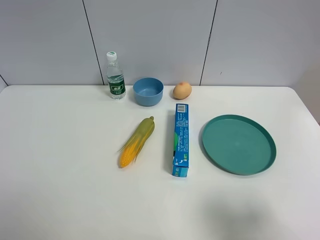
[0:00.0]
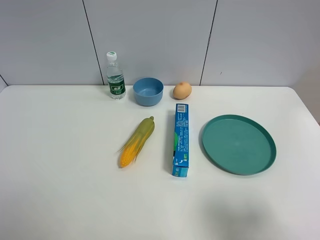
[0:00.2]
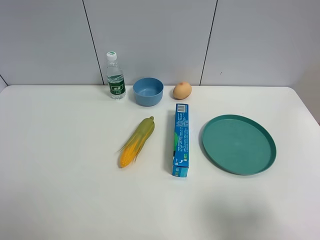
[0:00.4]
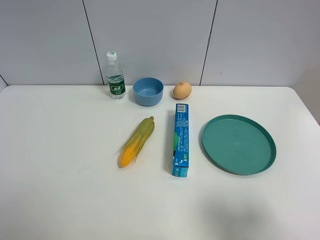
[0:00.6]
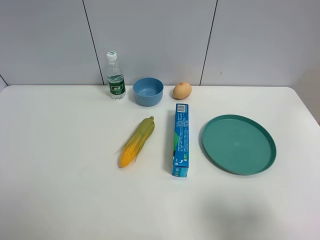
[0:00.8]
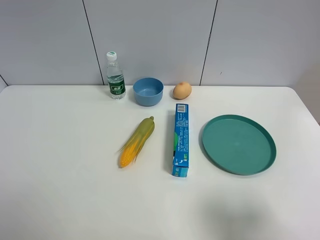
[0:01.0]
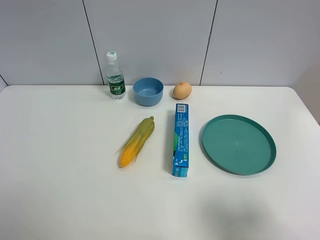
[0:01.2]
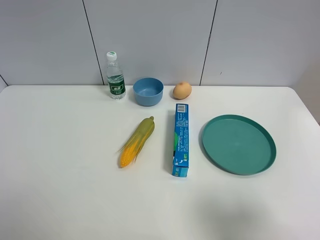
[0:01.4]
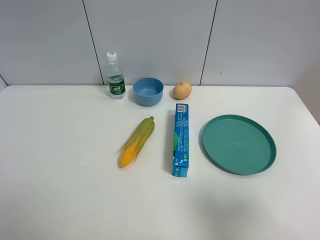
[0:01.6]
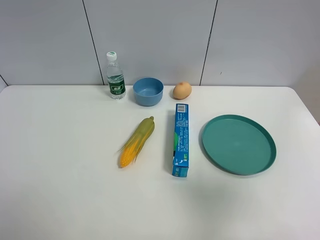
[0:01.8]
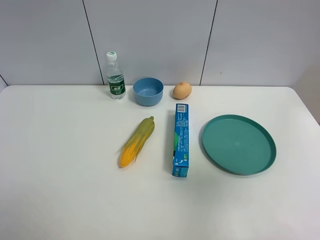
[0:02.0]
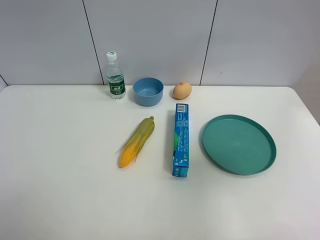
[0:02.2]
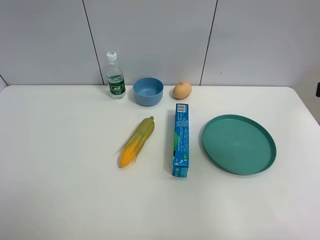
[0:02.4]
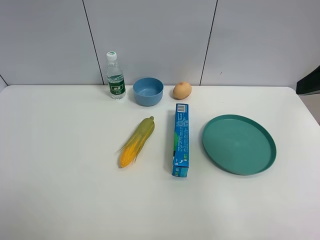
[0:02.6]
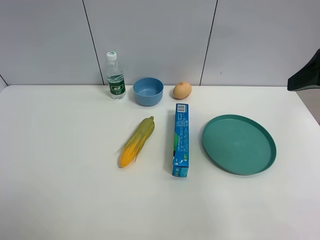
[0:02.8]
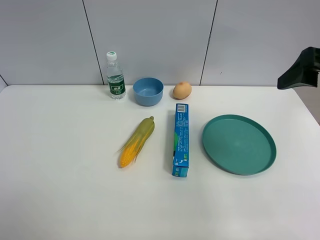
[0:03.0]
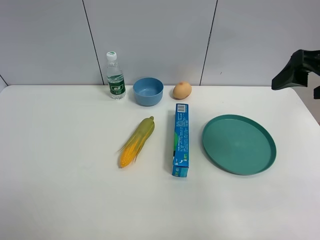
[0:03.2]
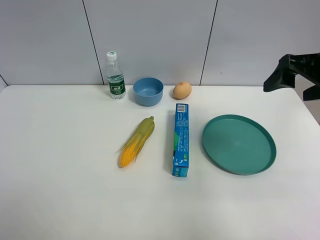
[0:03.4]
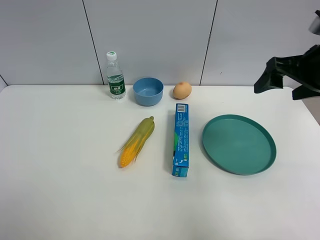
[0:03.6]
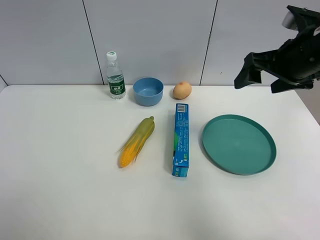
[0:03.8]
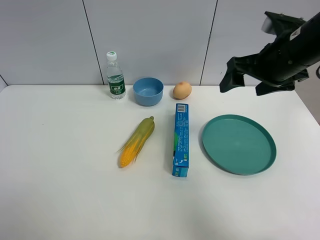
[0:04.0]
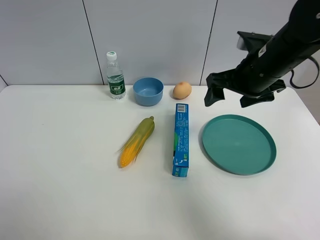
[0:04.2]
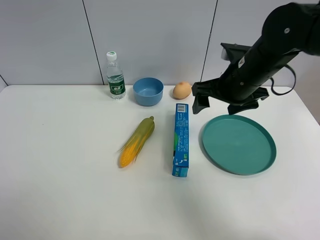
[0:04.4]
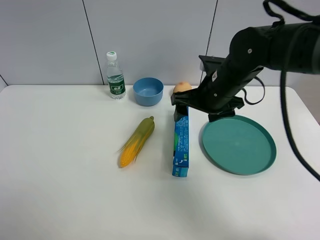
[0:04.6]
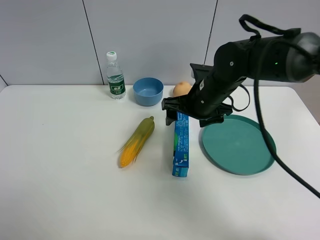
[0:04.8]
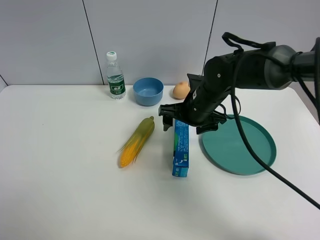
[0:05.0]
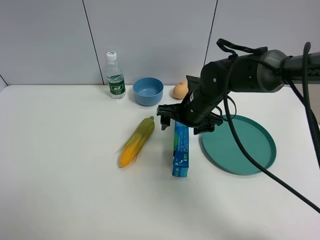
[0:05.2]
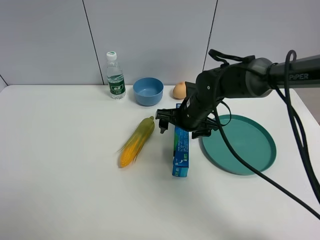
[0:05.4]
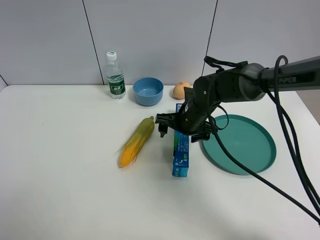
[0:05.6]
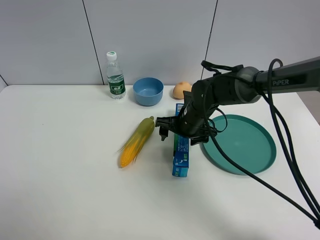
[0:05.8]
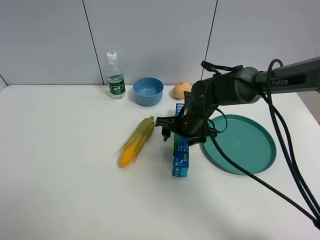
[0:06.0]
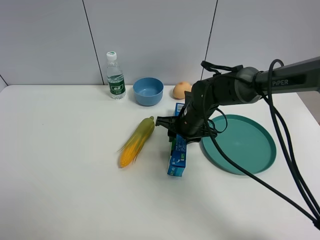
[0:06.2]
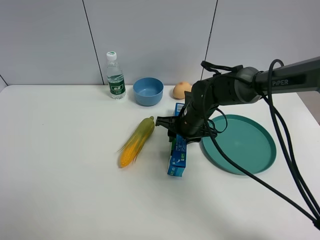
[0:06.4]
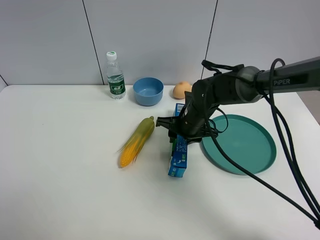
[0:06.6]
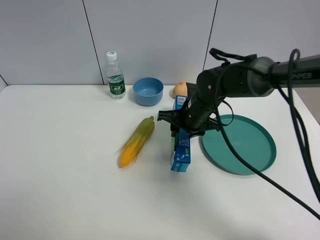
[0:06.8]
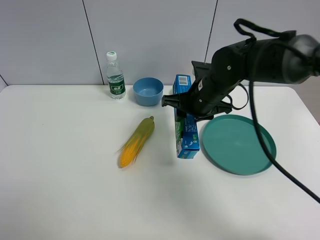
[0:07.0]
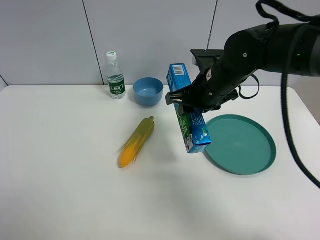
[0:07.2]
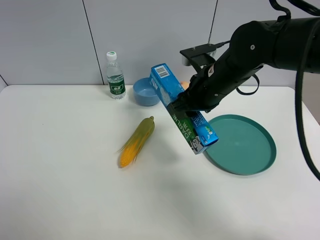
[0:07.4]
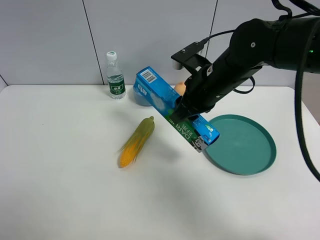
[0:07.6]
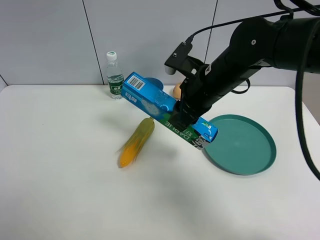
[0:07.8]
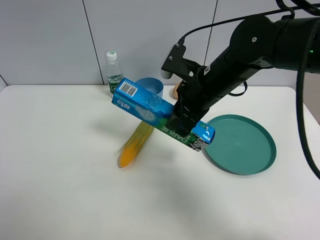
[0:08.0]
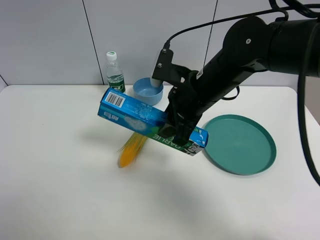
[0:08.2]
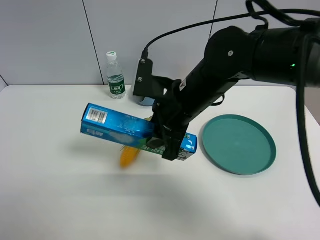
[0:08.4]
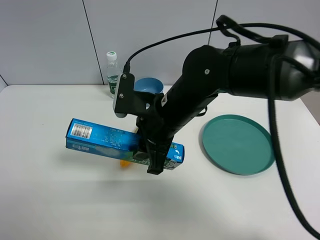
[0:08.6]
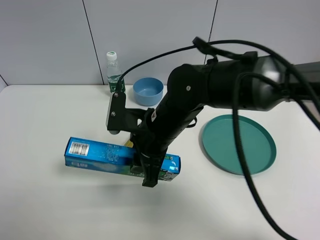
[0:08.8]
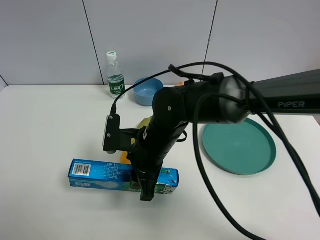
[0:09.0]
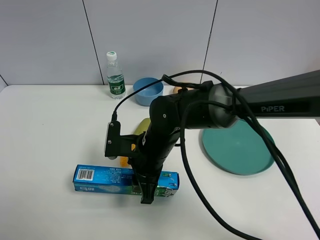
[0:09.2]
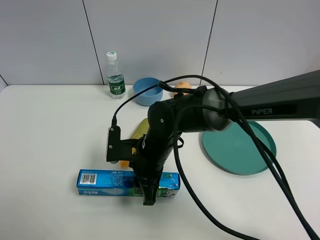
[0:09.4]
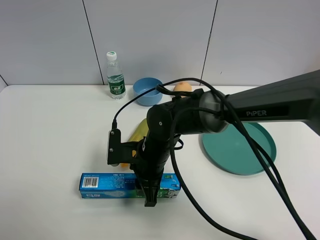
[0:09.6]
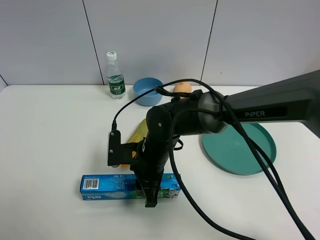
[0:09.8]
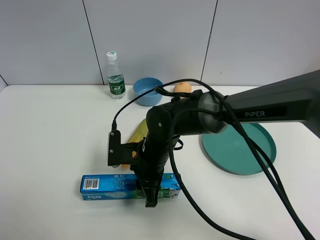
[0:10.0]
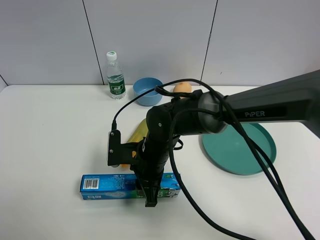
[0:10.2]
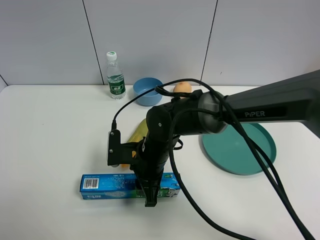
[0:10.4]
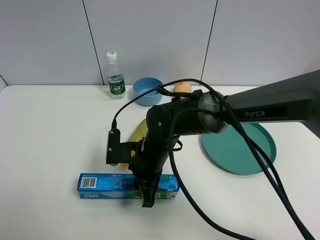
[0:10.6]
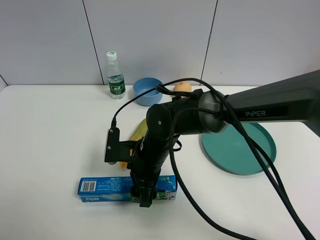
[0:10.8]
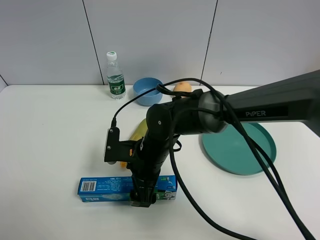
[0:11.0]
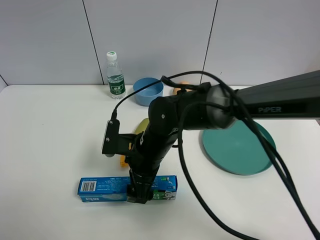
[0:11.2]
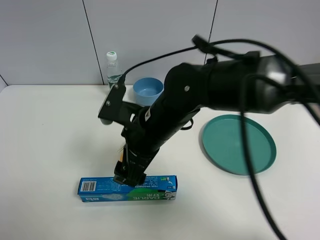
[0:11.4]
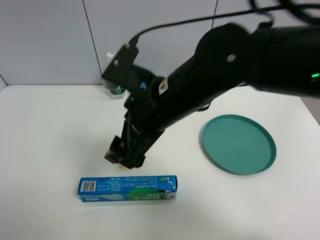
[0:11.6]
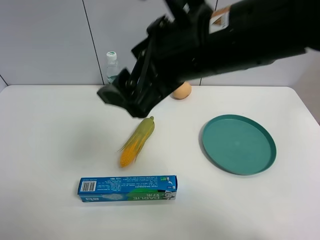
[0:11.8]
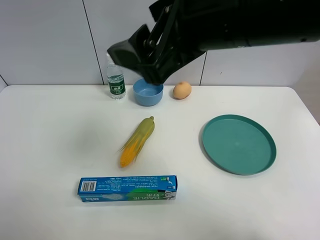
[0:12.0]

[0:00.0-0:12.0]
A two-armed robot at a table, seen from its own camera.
Task of the whole recording: the gripper move the object.
Step, 0:00.0 to 0:06.2: Grasp the toothpaste with the right gripper.
Step, 0:06.4 to 0:11.0: Place the toothpaste on the table with the right gripper.
0:01.6 to 0:03.0: The right gripper moves forward, approximately 20 cm.
0:03.0 to 0:04.4: The right gripper goes some 20 cm to the left, downward and forward.
0:04.4 to 0:06.0: The right gripper moves downward and to the left, approximately 15 cm, and closes.
0:06.0 to 0:07.6: The right gripper is displaced upward by some 15 cm, and closes its fingers.
0:07.6 to 0:09.0: The right gripper moves to the left, downward and backward, some 15 cm.
0:09.0 to 0:10.4: The grippers move only a little.
0:10.4 to 0:12.0: The right gripper shifts roughly 30 cm upward, and opens.

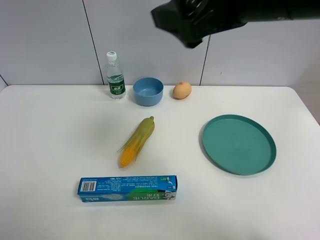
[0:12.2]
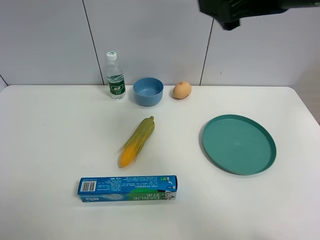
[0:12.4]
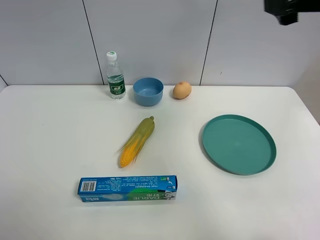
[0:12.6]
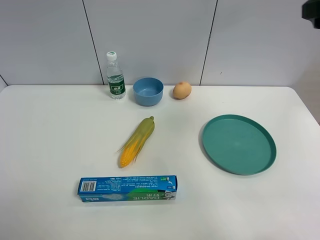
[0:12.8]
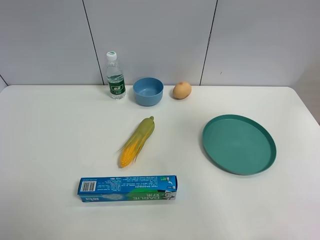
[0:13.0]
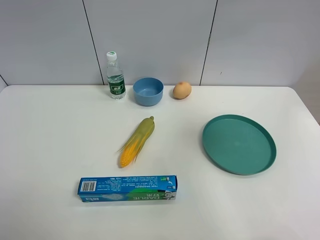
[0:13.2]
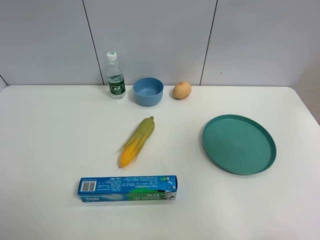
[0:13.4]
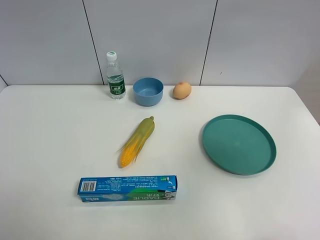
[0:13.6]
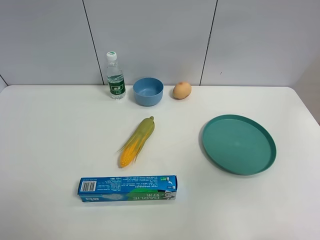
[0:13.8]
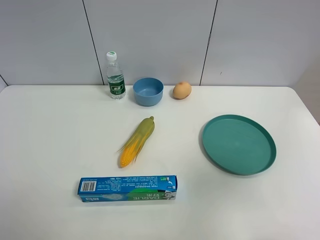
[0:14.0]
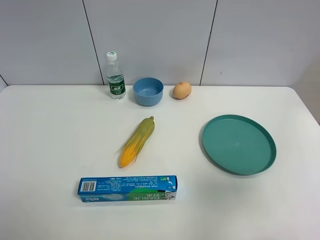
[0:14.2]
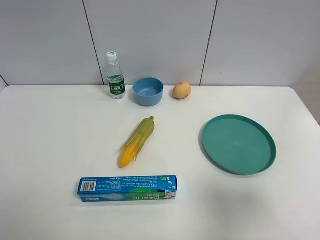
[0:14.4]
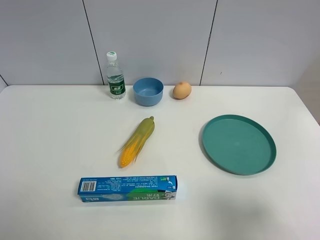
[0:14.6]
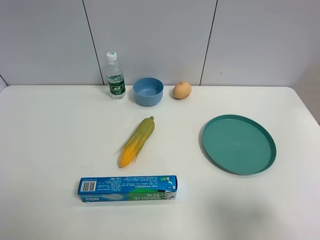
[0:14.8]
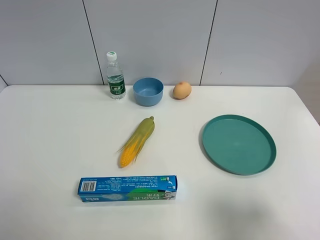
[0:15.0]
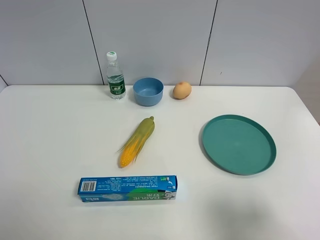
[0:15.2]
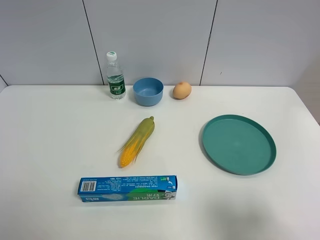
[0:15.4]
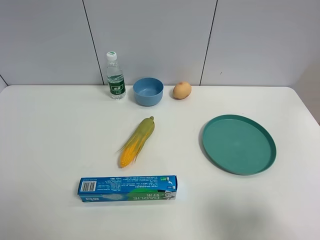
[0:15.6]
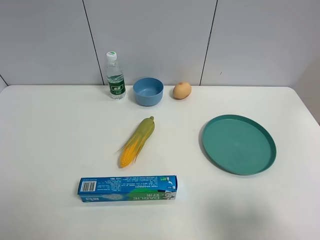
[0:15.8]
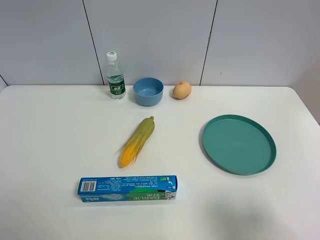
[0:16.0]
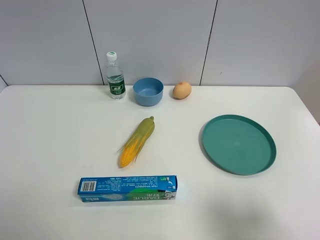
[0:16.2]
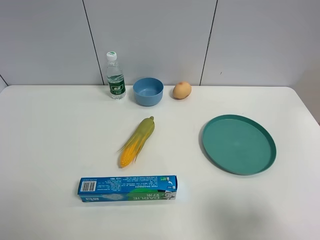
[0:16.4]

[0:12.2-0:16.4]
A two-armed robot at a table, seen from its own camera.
Task of the whole recording: the gripper move the object.
0:12.2 to 0:13.6: The right gripper goes some 20 cm to the right and backward.
0:13.6 to 0:15.0: The right gripper goes some 20 cm downward and backward.
0:15.0 to 0:16.4: Both grippers stay about where they are.

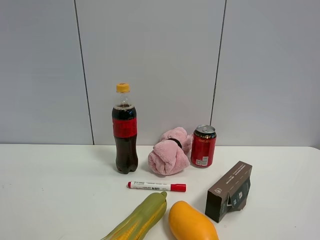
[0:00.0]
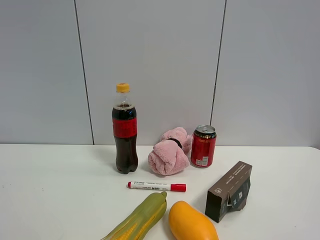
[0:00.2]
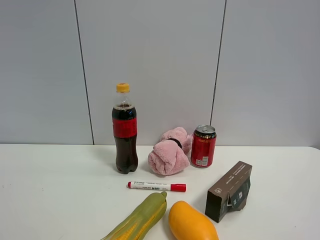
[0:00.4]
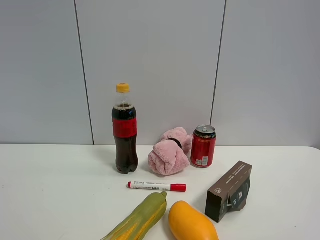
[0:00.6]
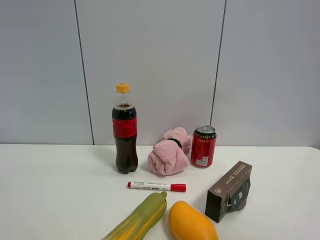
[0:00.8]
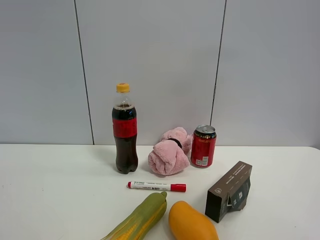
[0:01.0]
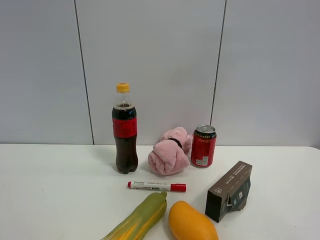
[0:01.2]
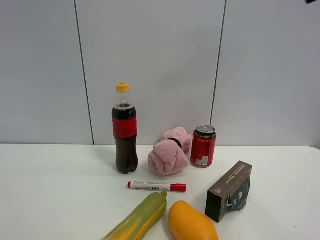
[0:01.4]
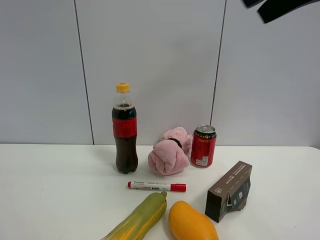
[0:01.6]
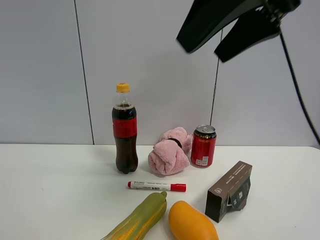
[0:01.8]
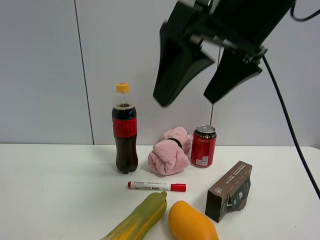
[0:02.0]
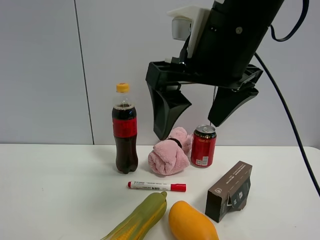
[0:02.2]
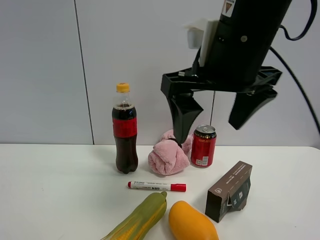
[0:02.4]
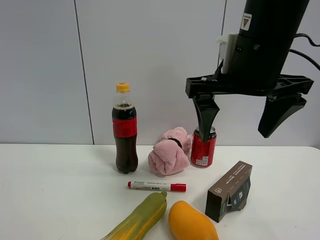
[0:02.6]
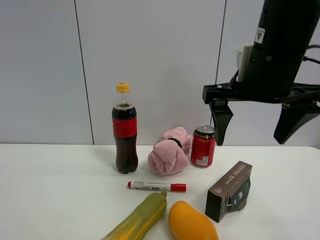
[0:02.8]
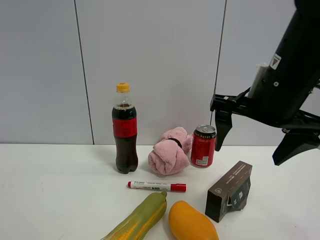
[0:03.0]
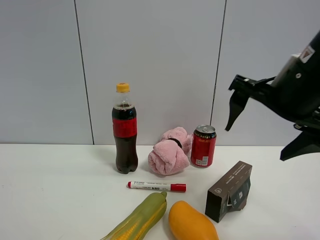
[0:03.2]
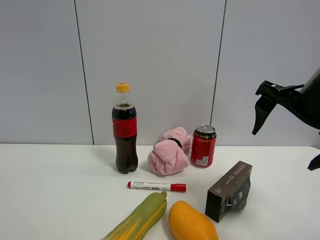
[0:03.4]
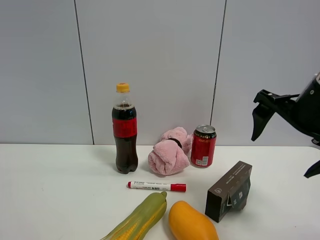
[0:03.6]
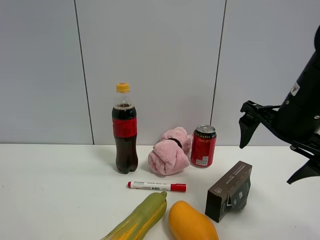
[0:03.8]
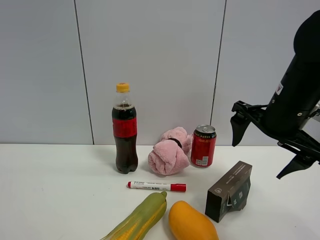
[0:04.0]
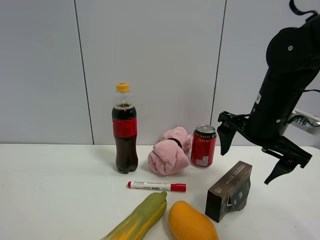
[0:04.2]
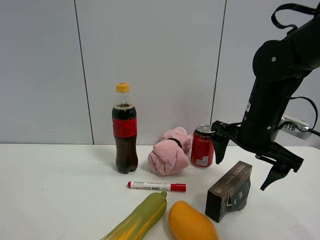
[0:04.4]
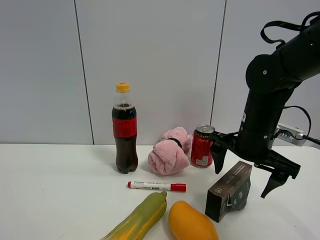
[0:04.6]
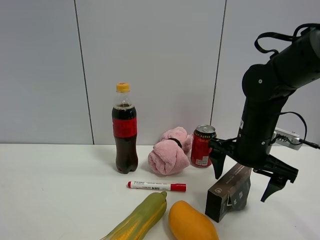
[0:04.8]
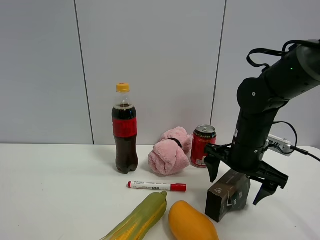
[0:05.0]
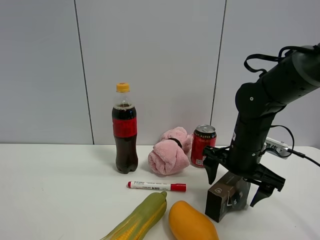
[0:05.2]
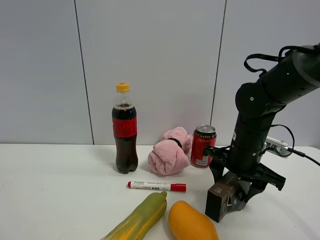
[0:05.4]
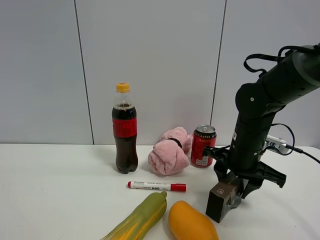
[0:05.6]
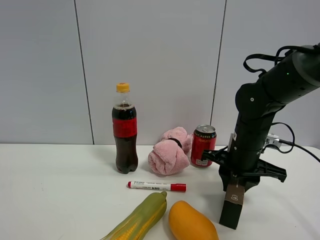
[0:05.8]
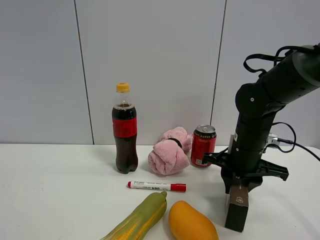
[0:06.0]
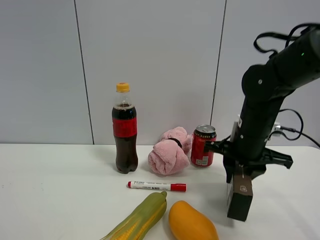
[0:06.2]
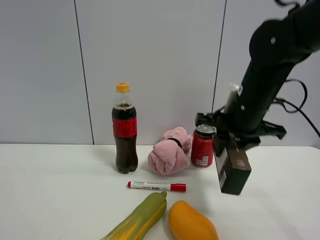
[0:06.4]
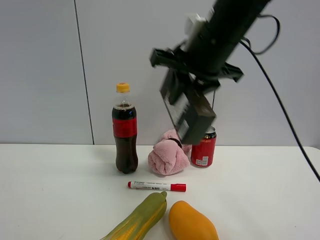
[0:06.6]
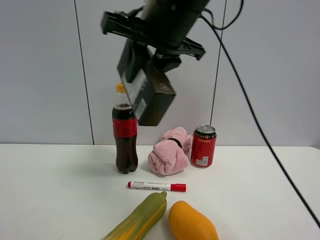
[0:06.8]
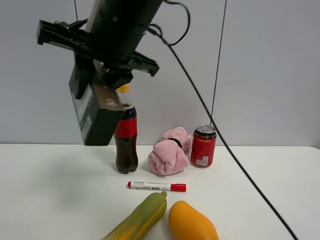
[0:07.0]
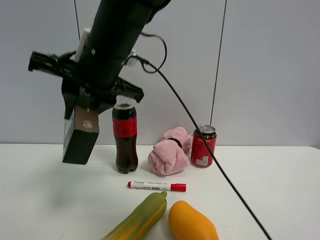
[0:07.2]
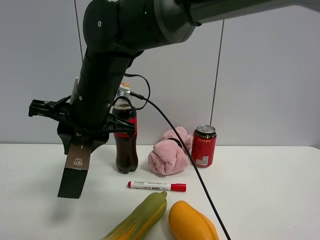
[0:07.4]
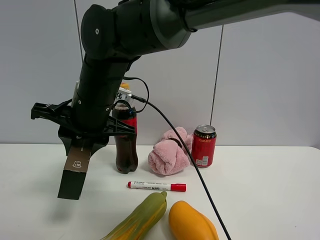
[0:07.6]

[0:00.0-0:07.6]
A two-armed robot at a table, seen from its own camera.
Task of the whole recording: the gripper move the object.
Step, 0:00.0 to 0:05.6: Grasp the brown box with the right gripper.
0:00.0 to 0:01.6: The right gripper travels forward, upward and to the left by some 30 cm.
0:01.6 to 0:03.0: The right gripper moves downward, about 15 cm.
0:03.0 to 0:04.6: The right gripper travels downward and forward by some 15 cm.
0:04.6 to 0:06.0: The right gripper closes.
0:06.0 to 0:07.6: The right gripper heads to the left, covering some 25 cm.
